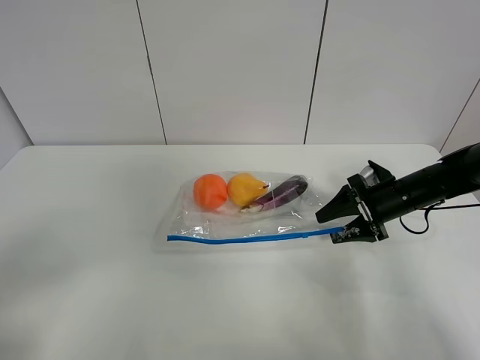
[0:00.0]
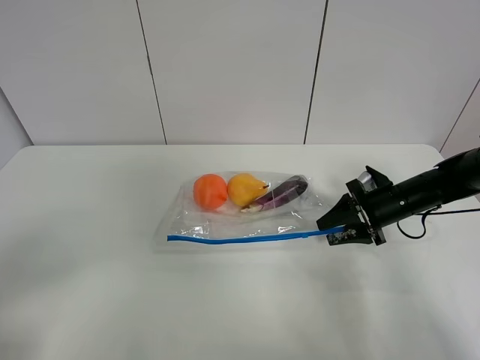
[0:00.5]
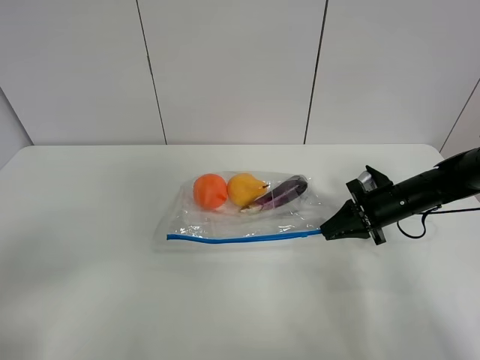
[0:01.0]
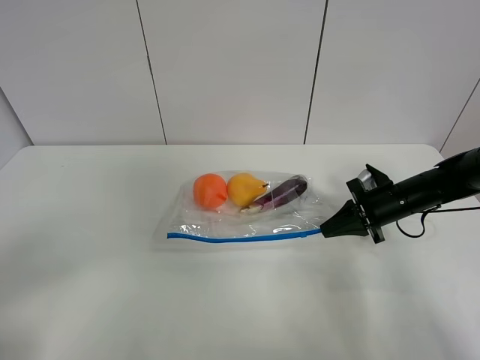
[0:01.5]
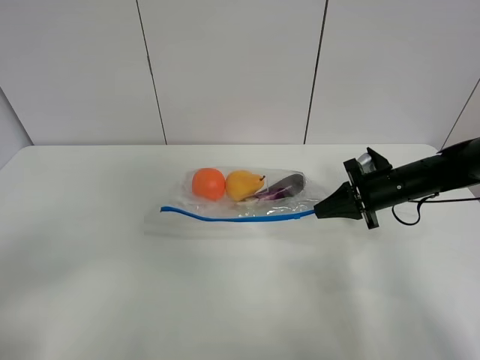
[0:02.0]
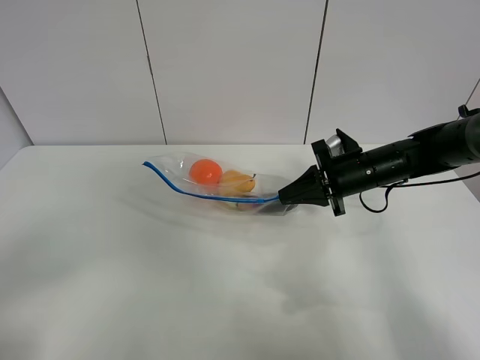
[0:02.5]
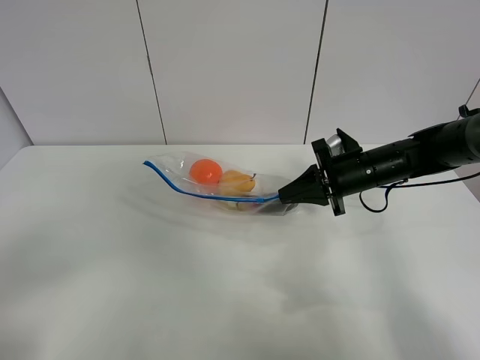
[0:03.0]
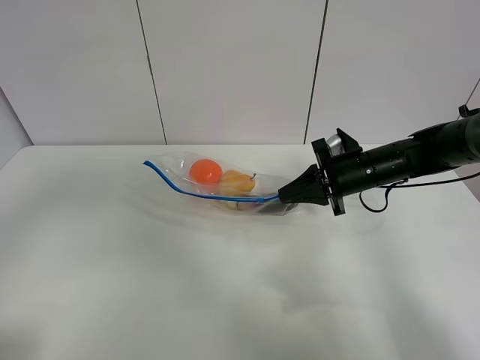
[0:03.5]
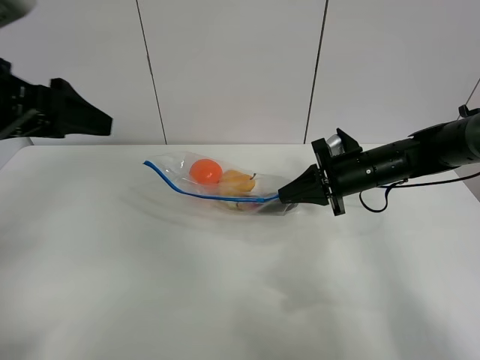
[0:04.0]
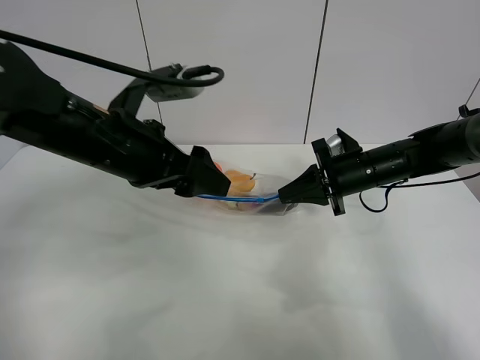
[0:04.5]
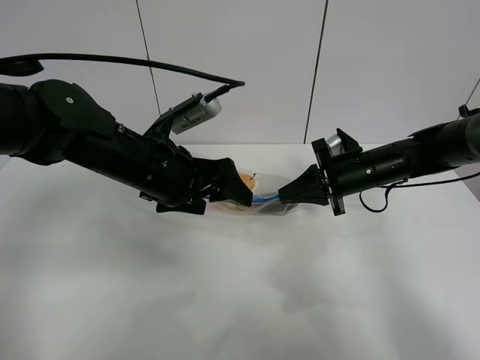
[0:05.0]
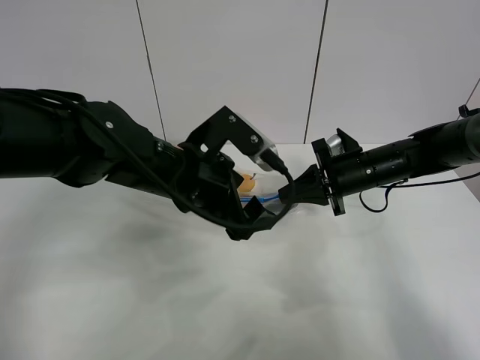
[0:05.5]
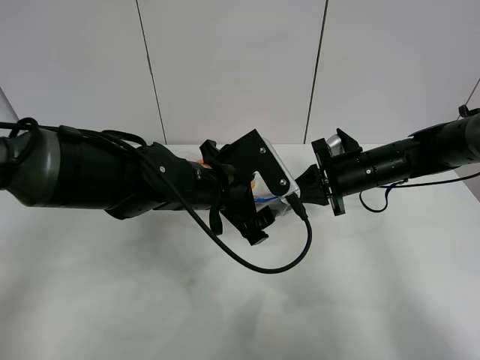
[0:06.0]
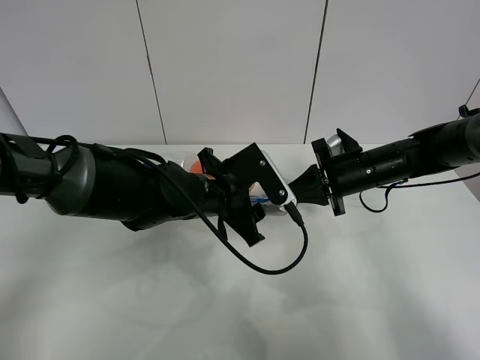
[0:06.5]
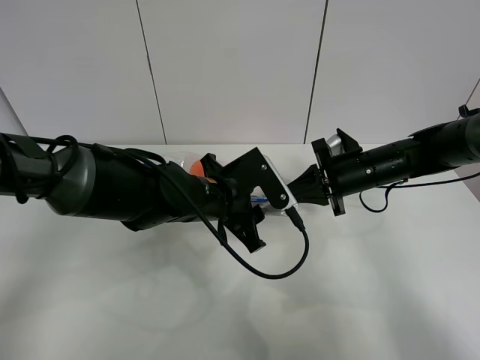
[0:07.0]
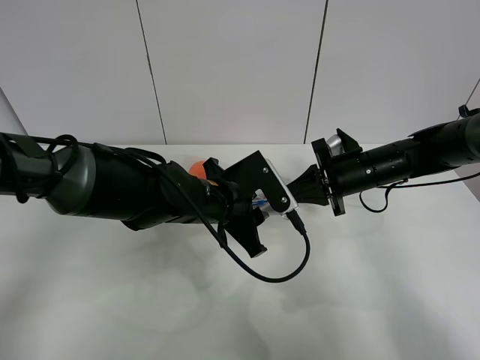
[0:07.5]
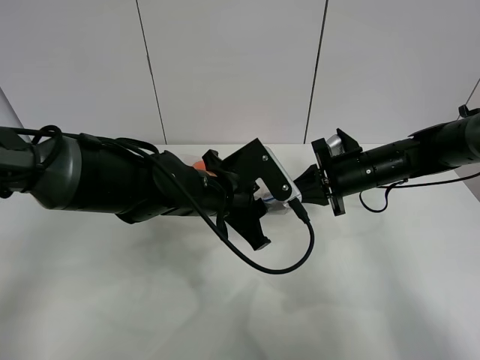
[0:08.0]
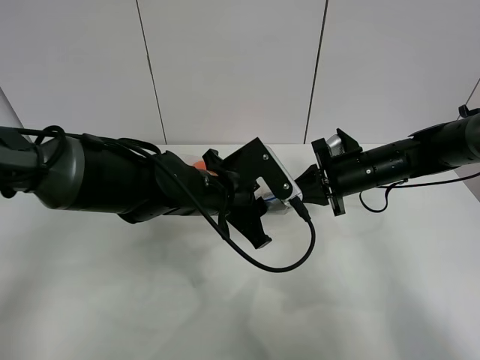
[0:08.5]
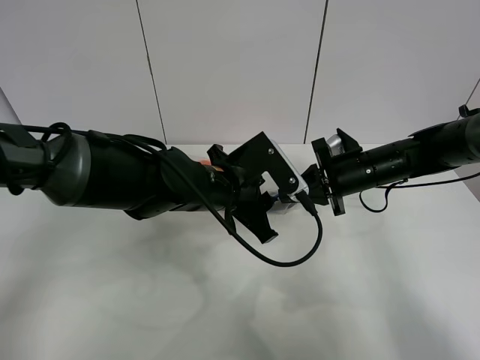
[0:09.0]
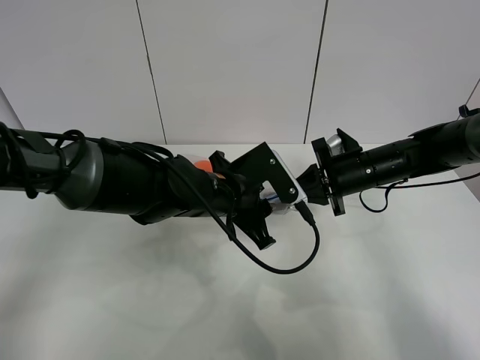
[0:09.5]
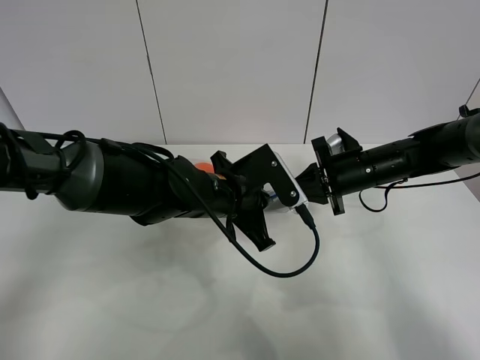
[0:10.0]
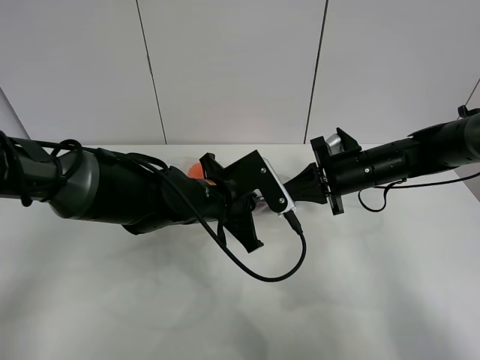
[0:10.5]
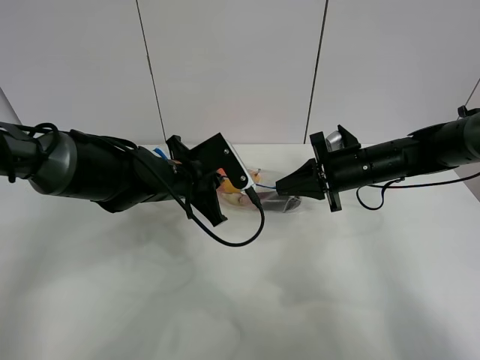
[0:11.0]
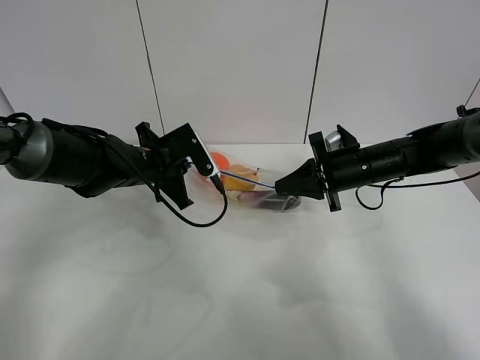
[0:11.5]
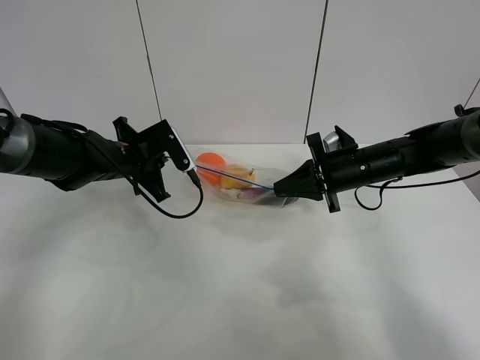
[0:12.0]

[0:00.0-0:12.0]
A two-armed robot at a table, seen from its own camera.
Step, 0:01.5 to 0:02.5: Lift the fruit bag with your right gripper.
0:00.0 to 0:02.0: The right gripper closes.
0:02.0 to 0:04.0: The right gripper heads to the left, covering approximately 5 cm. Meanwhile the left gripper travels forward by roughly 25 cm.
0:04.0 to 0:06.0: The left gripper goes approximately 25 cm to the right and downward.
0:06.0 to 0:08.0: The left gripper closes up.
0:08.0 to 0:10.0: The left gripper closes.
0:10.0 to 0:12.0: The left gripper goes approximately 20 cm to the left and forward.

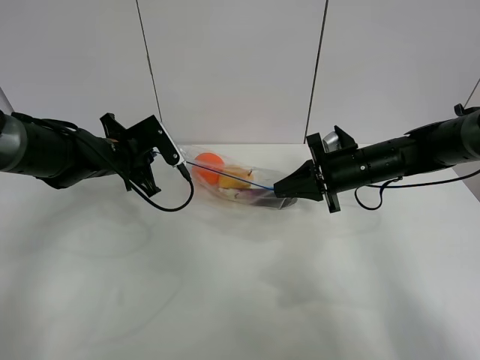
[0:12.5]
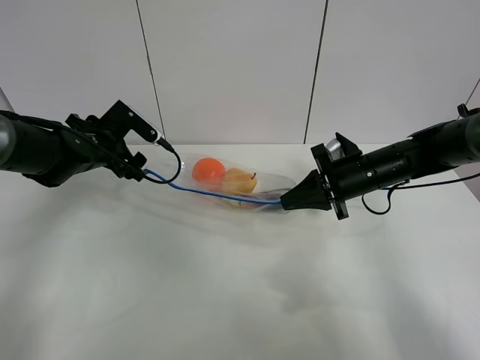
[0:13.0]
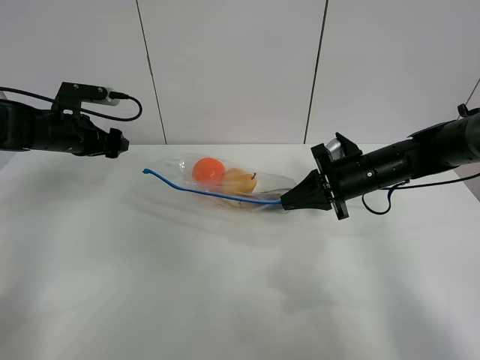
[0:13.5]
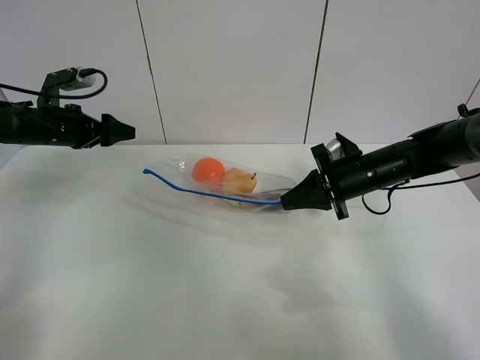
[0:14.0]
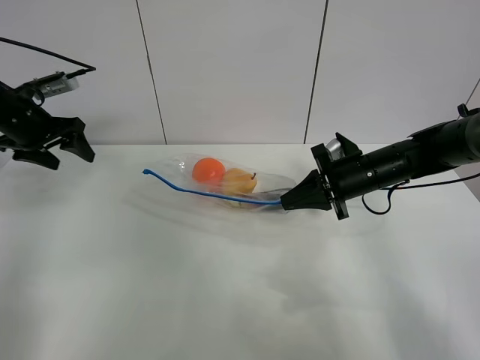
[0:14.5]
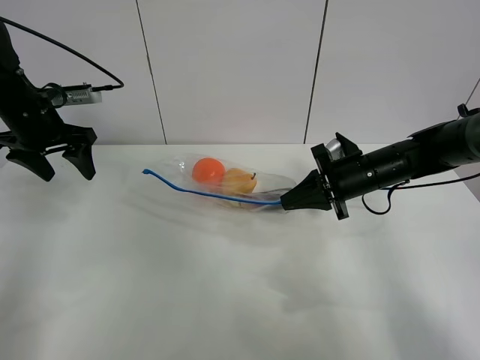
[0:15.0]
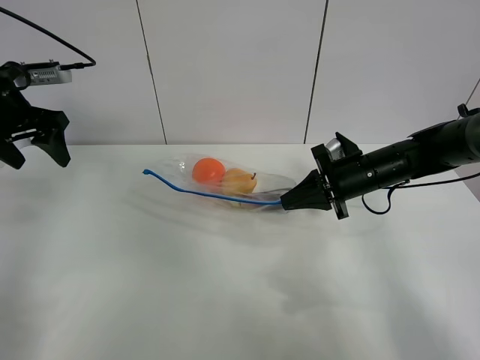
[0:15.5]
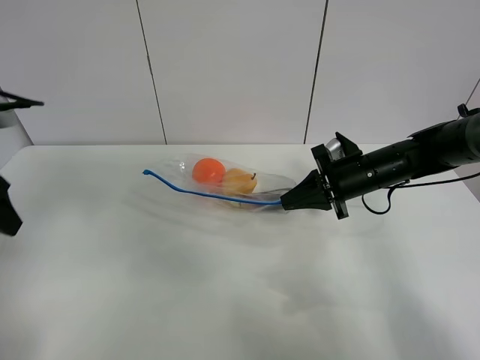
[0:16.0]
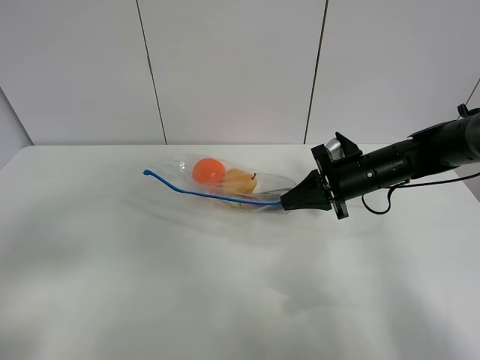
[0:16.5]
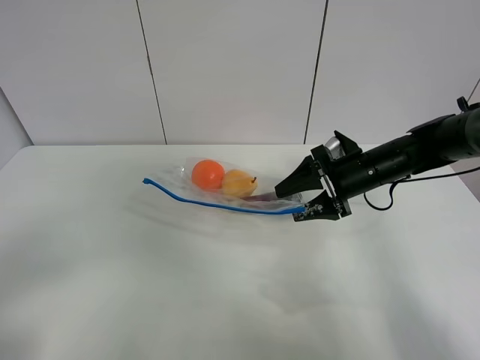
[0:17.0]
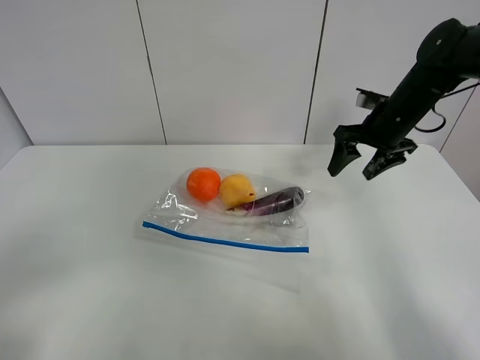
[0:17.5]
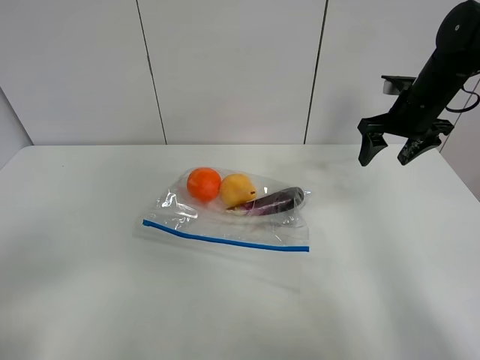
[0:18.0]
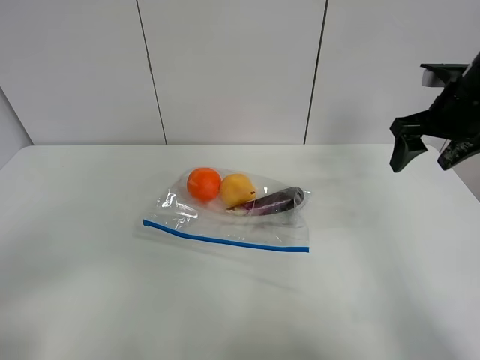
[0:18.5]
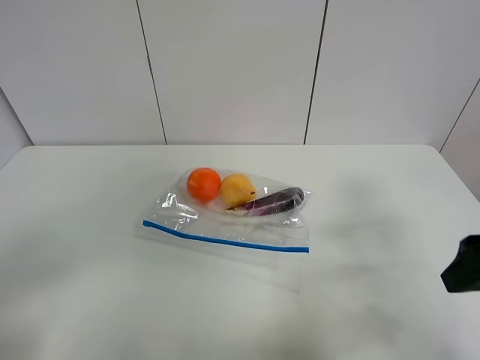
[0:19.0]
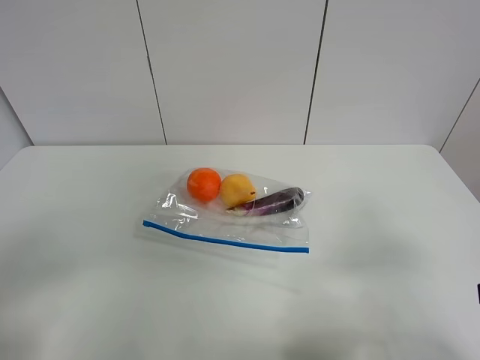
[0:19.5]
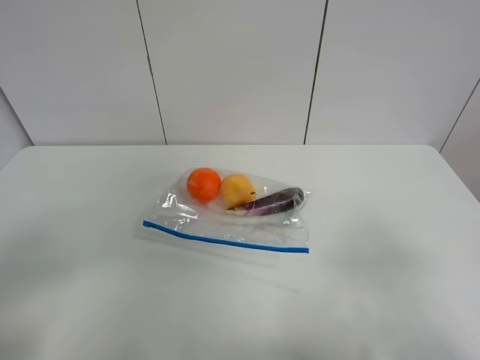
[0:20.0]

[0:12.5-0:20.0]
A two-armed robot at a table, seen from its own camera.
0:12.5 to 0:14.5: The left gripper shifts approximately 15 cm to the left and upward, and opens up.
0:14.5 to 0:16.5: The left gripper shifts roughly 30 cm backward.
0:16.5 to 0:18.0: The right gripper goes roughly 15 cm upward, to the right and forward, and opens up; the left gripper moves backward, approximately 10 cm.
0:18.0 to 0:20.0: The right gripper heads backward, covering approximately 40 cm.

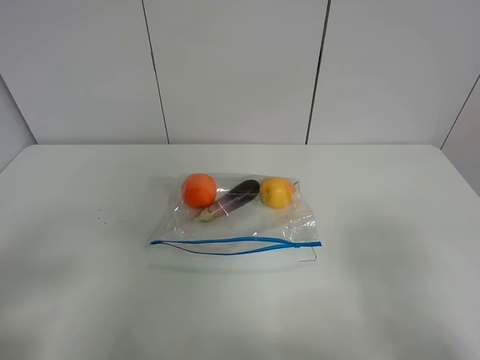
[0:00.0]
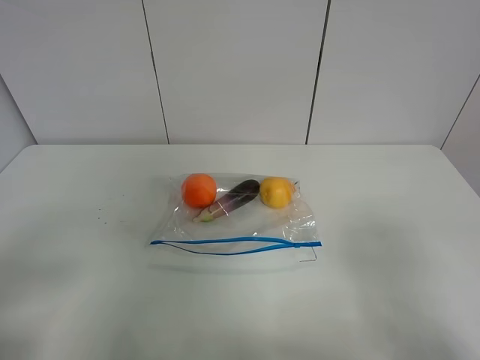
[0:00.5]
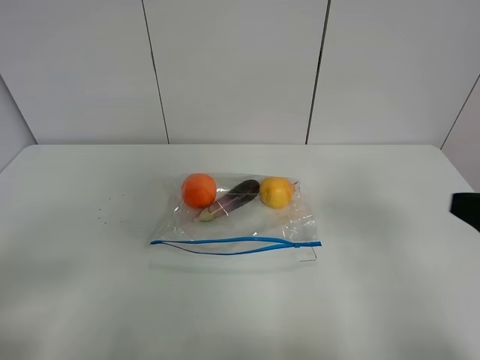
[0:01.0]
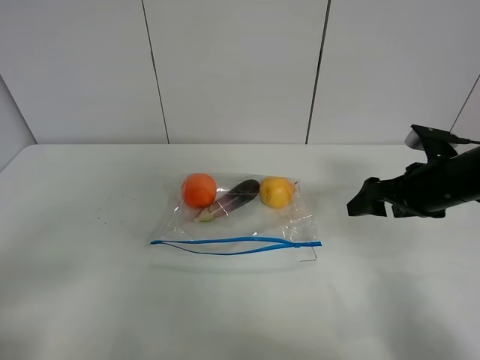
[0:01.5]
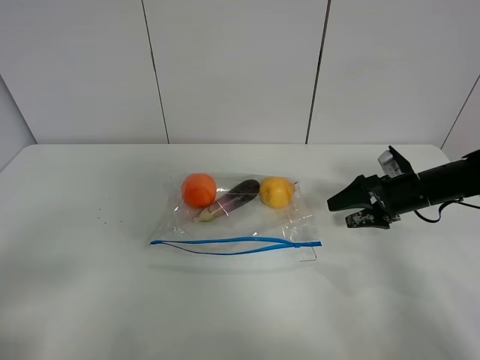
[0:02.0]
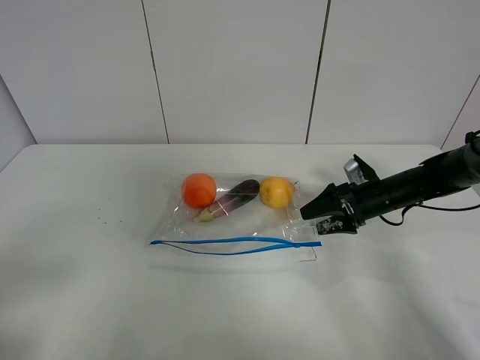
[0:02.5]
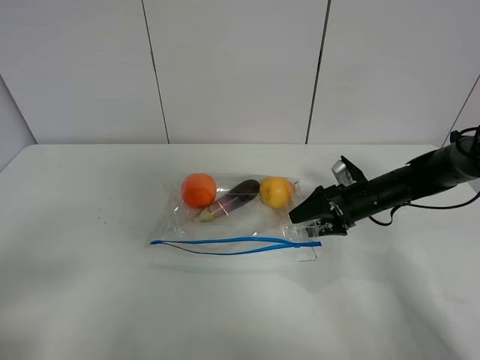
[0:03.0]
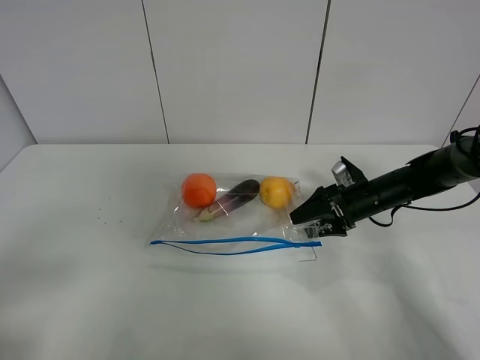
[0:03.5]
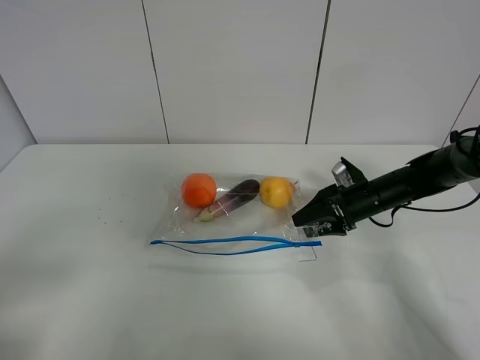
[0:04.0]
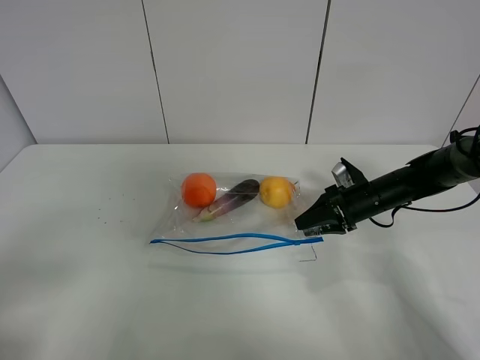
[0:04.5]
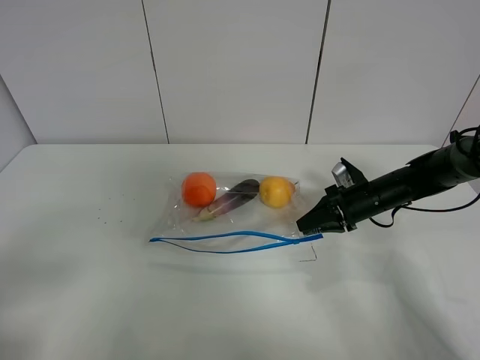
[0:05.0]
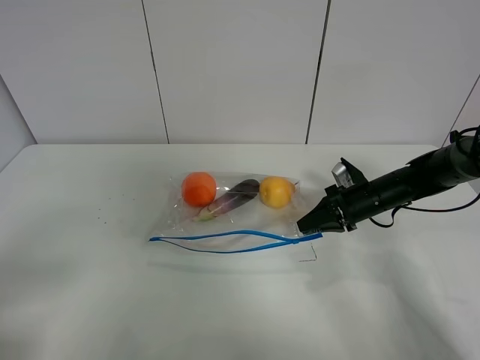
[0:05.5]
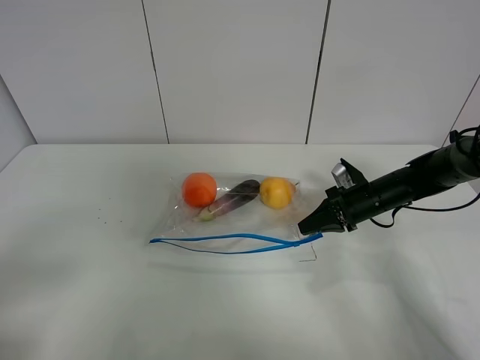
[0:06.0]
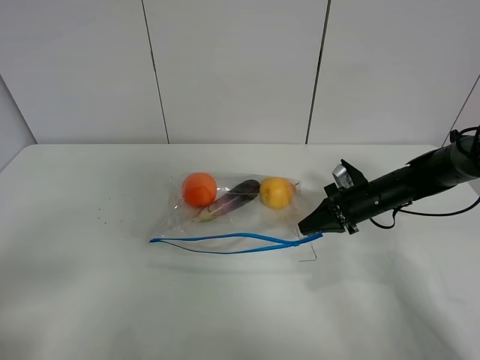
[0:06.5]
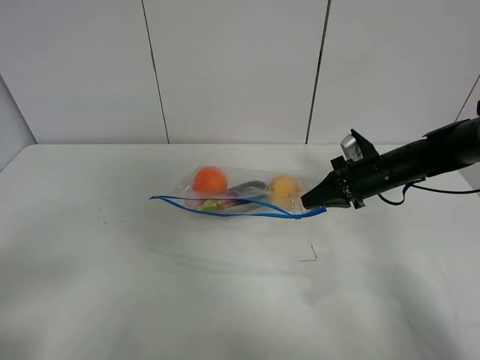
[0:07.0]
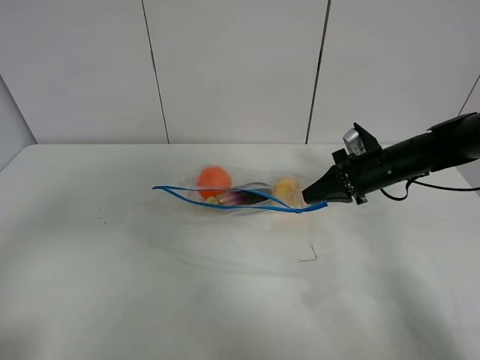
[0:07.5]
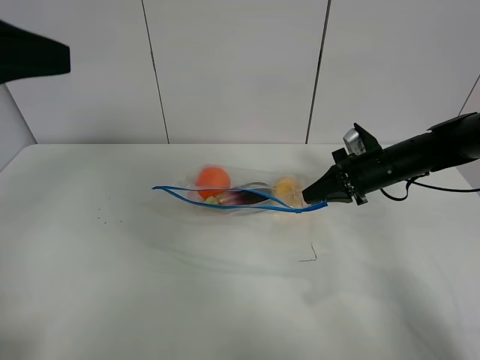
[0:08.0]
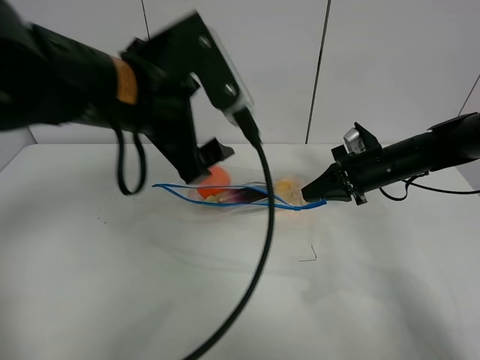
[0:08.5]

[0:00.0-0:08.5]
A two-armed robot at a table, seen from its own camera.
Step, 0:00.0 to 0:05.5: Grasp the fruit bag with right gripper.
Step, 0:06.0 to 0:07.5: Lift the fruit bag with your right gripper.
0:00.0 to 0:02.0: The right gripper moves forward and downward, about 40 cm.
0:02.0 to 0:04.0: The right gripper shifts about 5 cm to the left.
0:04.0 to 0:06.5: The right gripper closes.
0:06.5 to 0:08.5: The right gripper shifts approximately 5 cm upward. Meanwhile the left gripper is displaced forward and to the right by about 35 cm.
